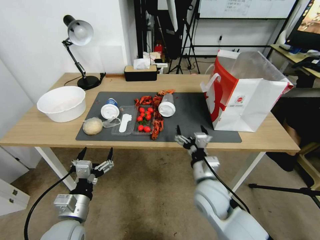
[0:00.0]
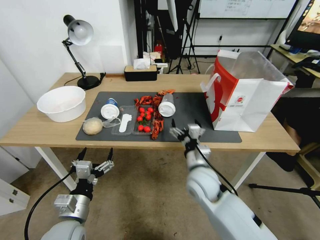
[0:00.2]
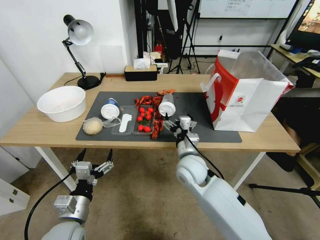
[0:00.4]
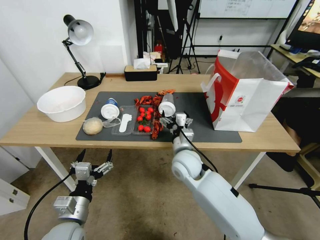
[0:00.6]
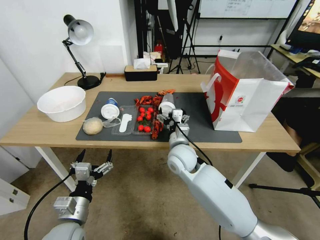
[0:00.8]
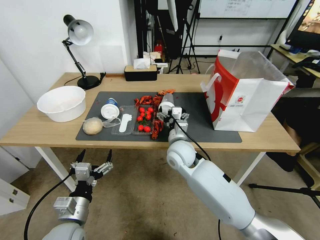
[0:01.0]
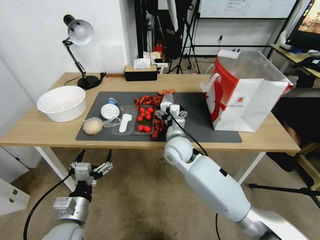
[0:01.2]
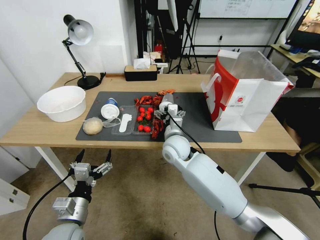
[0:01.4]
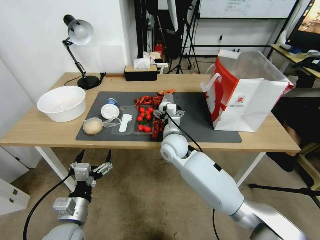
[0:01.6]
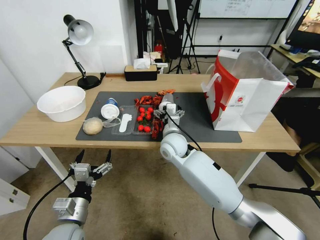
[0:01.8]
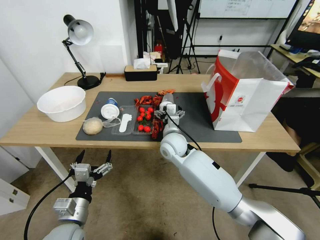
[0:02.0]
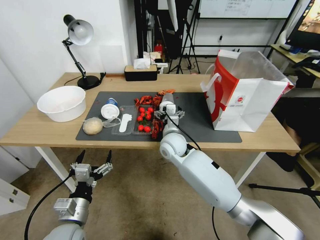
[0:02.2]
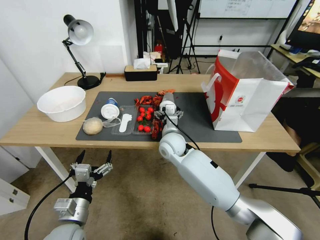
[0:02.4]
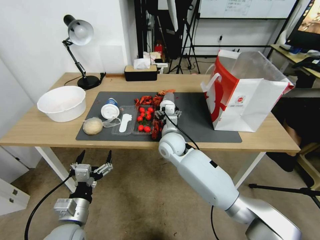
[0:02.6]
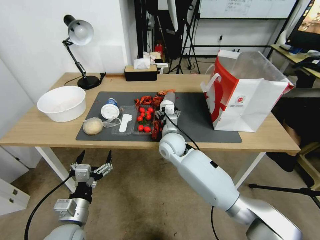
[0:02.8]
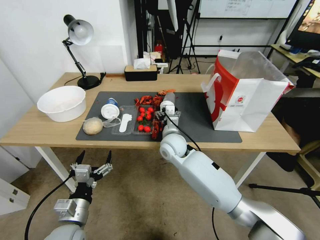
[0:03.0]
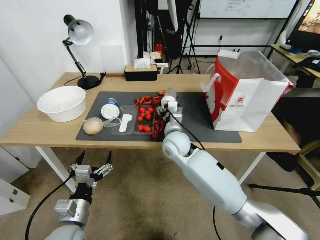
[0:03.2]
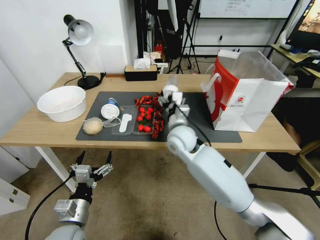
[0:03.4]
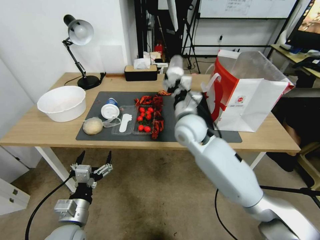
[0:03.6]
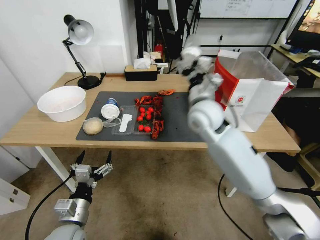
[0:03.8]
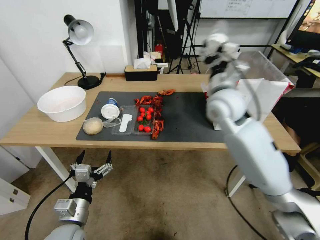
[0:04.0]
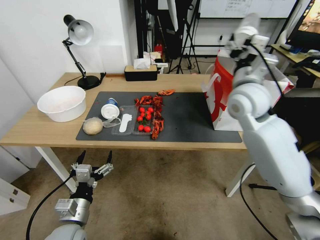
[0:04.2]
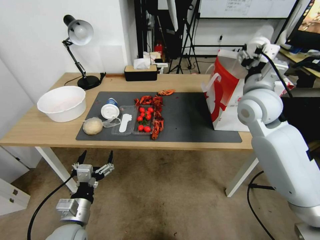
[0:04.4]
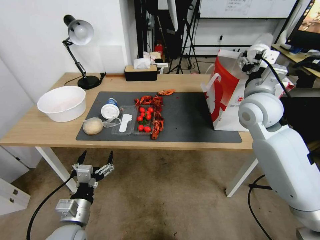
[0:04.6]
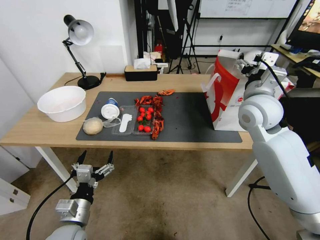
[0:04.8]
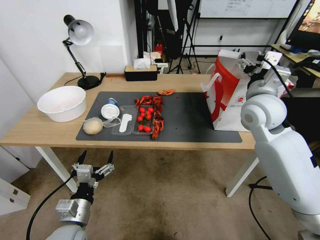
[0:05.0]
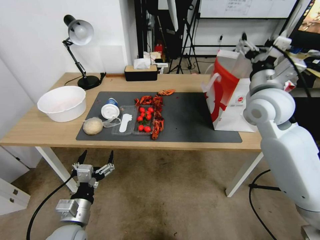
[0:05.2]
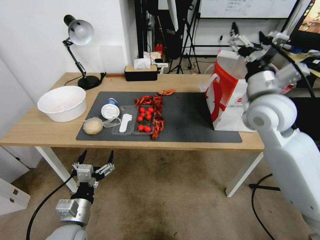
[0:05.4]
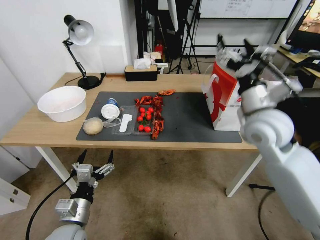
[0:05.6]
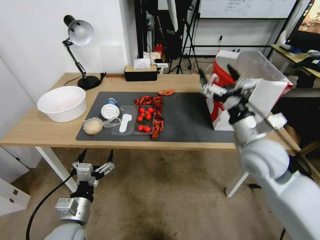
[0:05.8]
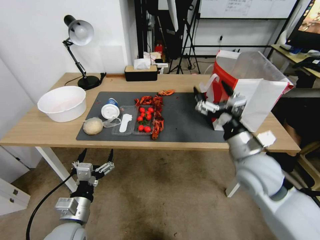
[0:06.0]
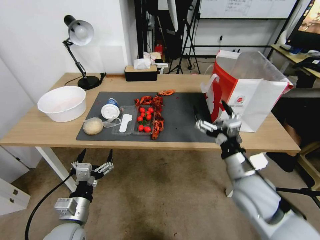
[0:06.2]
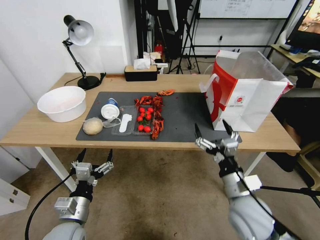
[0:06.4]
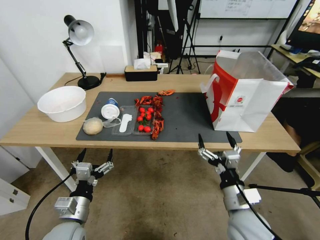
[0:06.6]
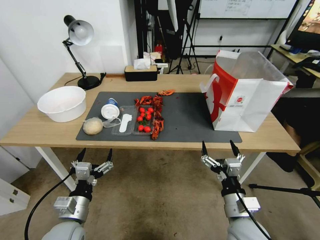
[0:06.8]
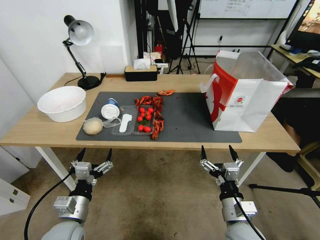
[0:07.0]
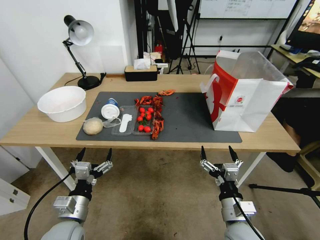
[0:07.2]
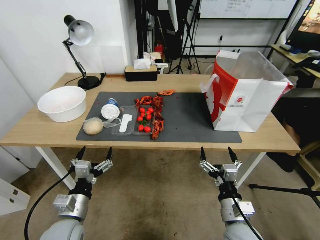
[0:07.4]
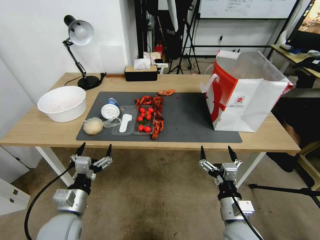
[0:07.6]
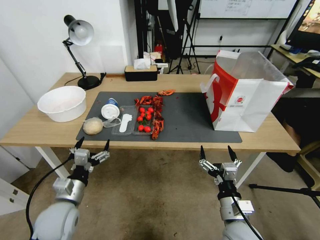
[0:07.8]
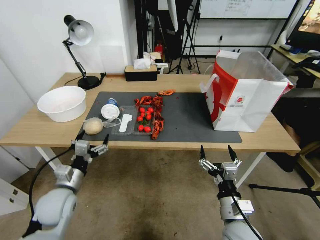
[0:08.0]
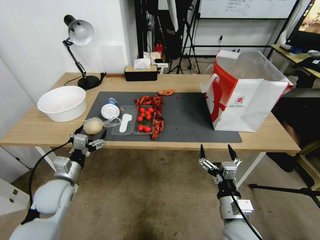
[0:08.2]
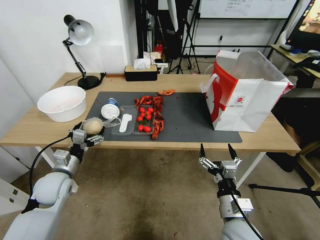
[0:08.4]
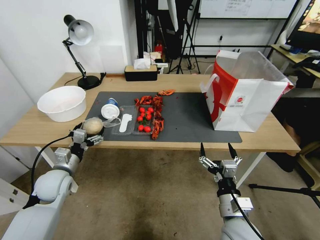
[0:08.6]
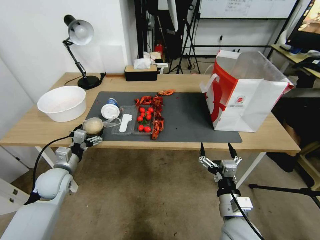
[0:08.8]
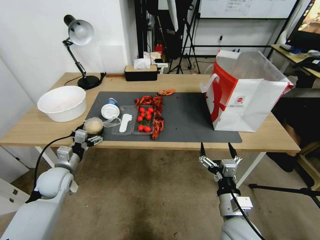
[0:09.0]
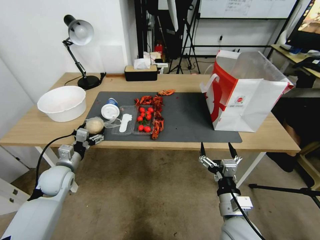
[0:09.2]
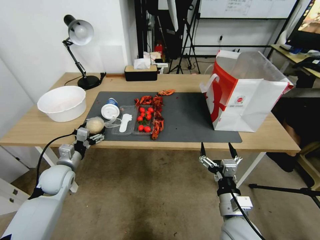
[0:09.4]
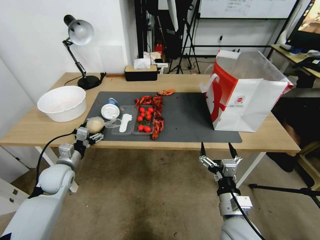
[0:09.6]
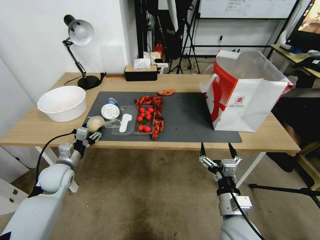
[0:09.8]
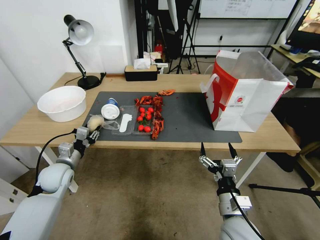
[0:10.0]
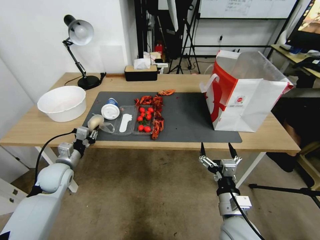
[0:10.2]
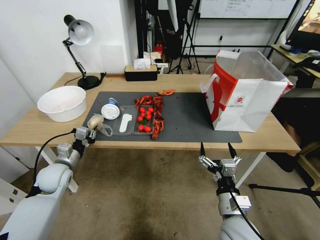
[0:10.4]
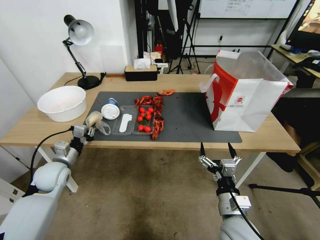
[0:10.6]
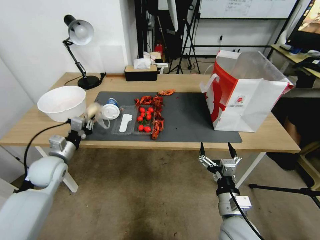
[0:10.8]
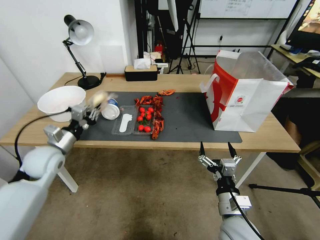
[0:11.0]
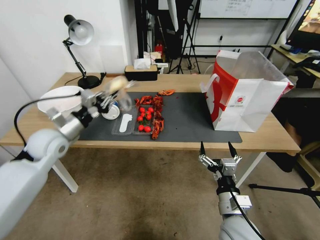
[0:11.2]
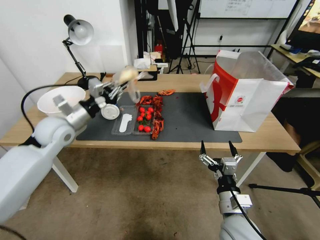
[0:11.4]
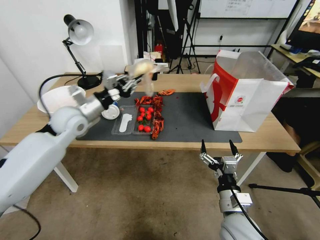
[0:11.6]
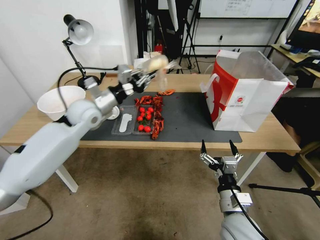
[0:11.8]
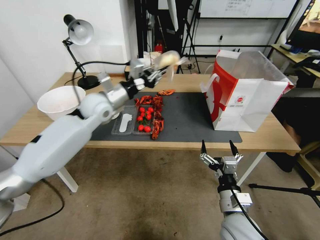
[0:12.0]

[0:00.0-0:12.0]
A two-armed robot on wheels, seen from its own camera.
0:00.0 to 0:01.6: The right gripper moves forward and to the left, some 20 cm.
0:01.6 to 0:03.0: The grippers stay close to where they were, moving slightly.
0:03.0 to 0:04.4: The right gripper moves to the right and upward, some 30 cm.
0:04.4 to 0:06.0: The right gripper goes about 15 cm backward and downward.
0:06.0 to 0:07.6: The right gripper shifts approximately 20 cm downward and backward.
0:07.6 to 0:09.0: The left gripper goes approximately 15 cm forward and to the left.
0:09.0 to 0:10.4: The left gripper closes up.
0:10.4 to 0:12.0: The left gripper goes about 30 cm upward, to the right and forward.

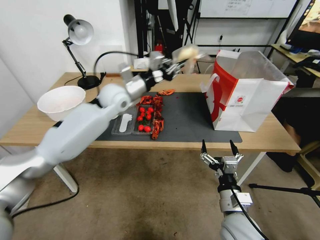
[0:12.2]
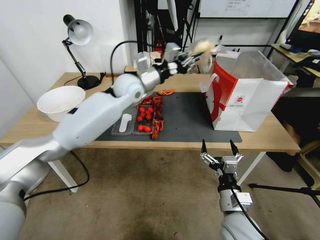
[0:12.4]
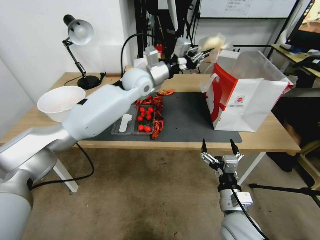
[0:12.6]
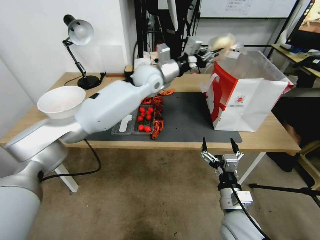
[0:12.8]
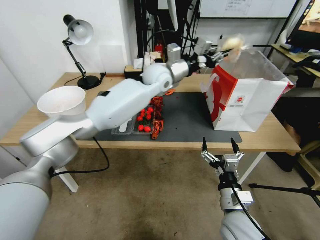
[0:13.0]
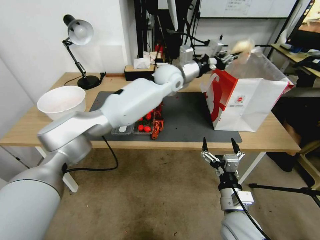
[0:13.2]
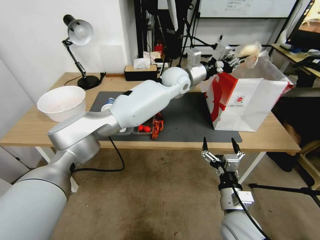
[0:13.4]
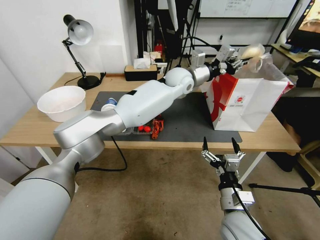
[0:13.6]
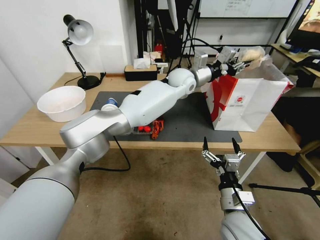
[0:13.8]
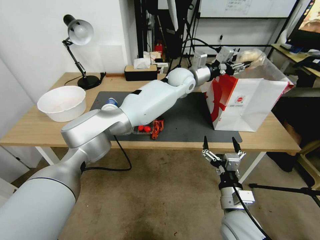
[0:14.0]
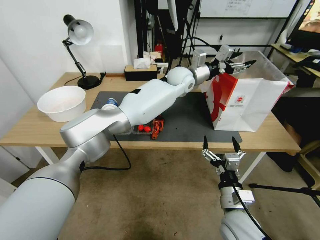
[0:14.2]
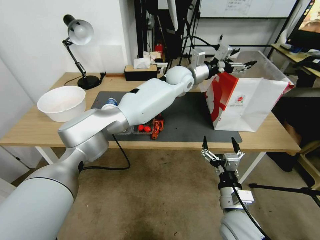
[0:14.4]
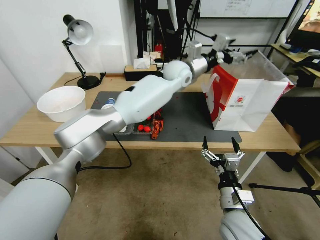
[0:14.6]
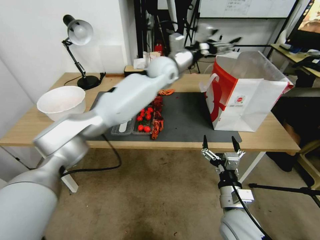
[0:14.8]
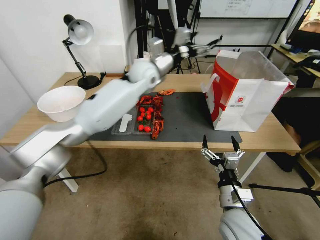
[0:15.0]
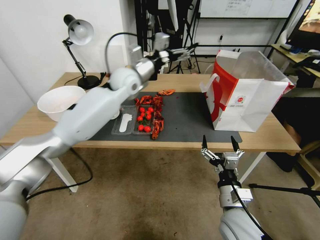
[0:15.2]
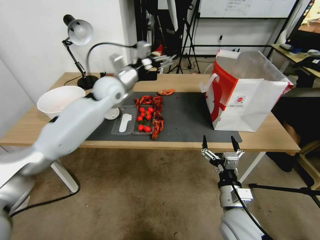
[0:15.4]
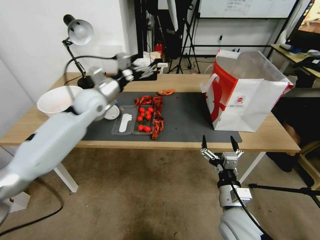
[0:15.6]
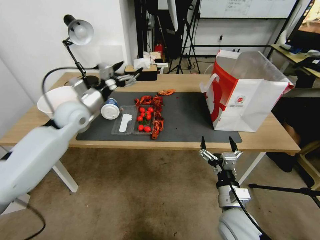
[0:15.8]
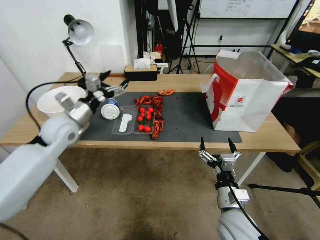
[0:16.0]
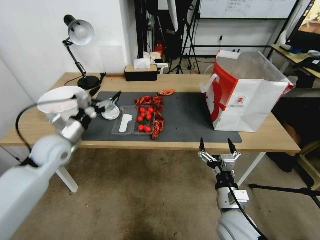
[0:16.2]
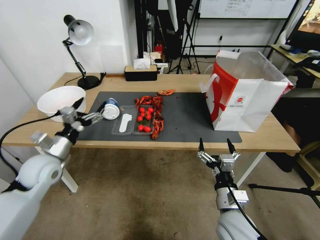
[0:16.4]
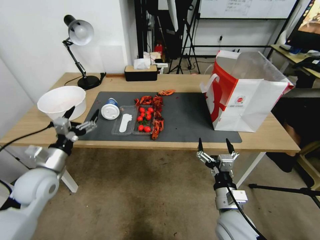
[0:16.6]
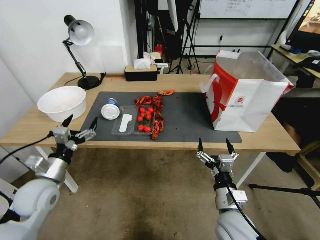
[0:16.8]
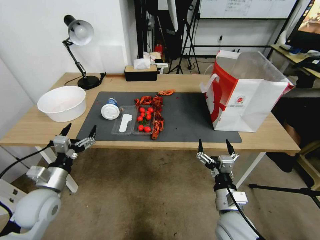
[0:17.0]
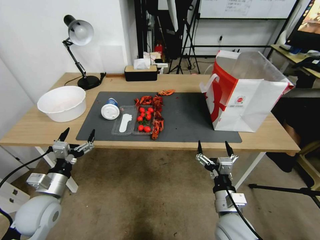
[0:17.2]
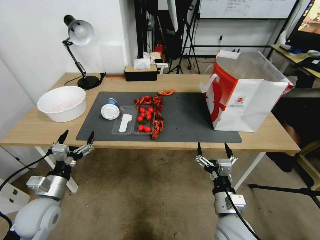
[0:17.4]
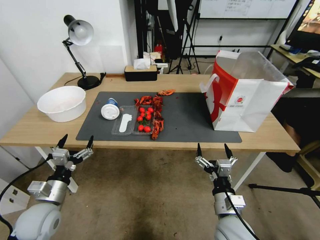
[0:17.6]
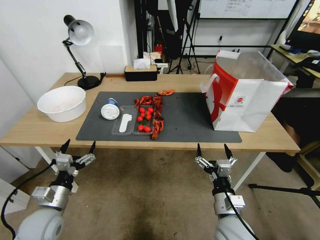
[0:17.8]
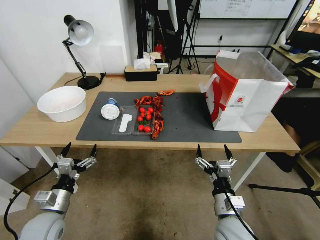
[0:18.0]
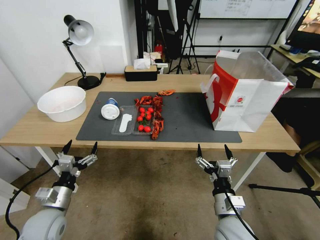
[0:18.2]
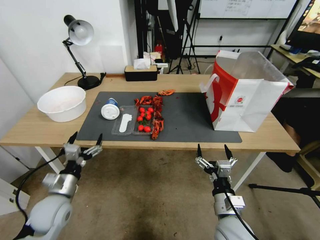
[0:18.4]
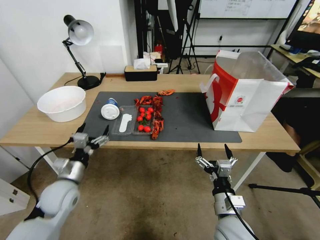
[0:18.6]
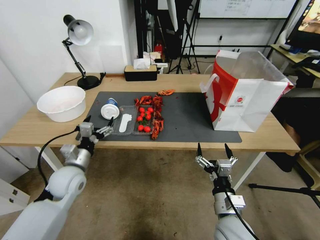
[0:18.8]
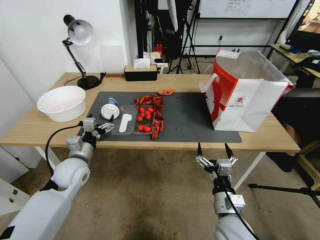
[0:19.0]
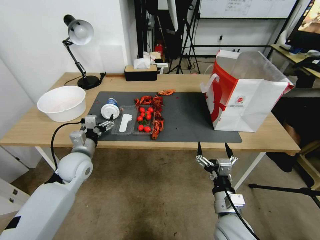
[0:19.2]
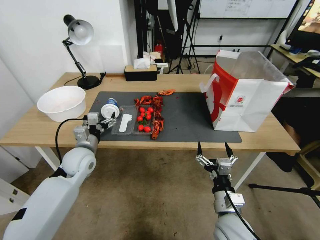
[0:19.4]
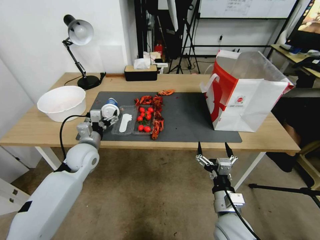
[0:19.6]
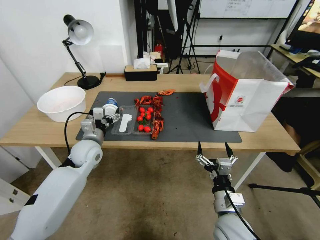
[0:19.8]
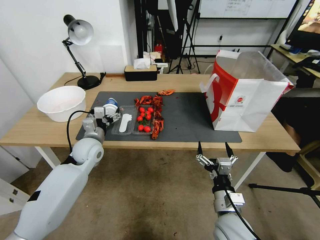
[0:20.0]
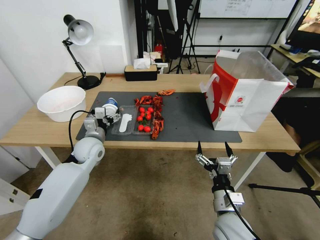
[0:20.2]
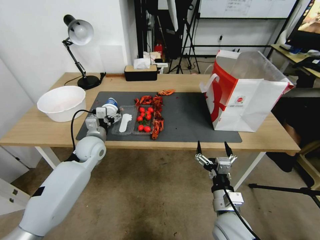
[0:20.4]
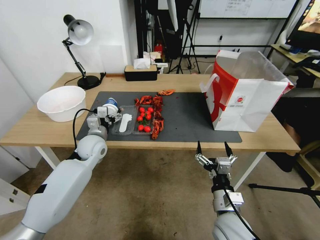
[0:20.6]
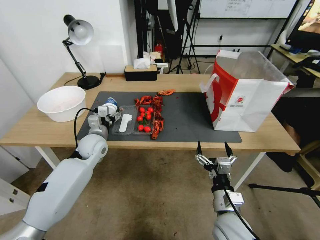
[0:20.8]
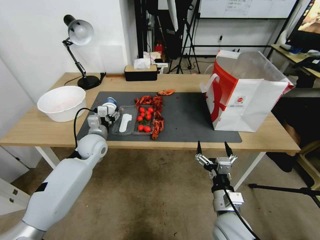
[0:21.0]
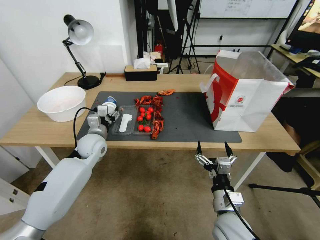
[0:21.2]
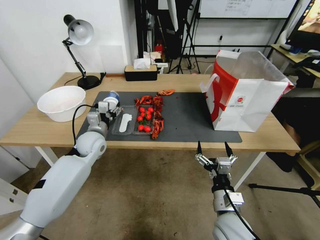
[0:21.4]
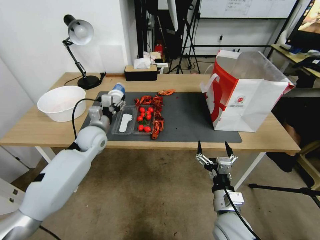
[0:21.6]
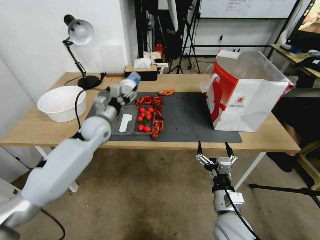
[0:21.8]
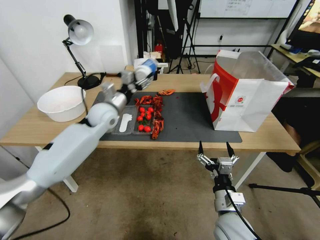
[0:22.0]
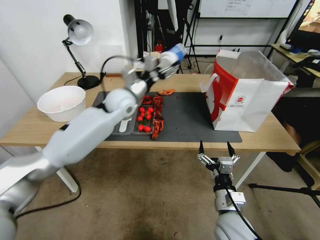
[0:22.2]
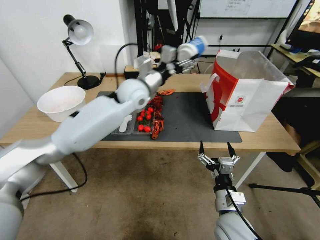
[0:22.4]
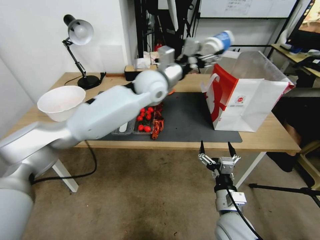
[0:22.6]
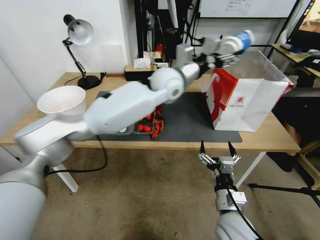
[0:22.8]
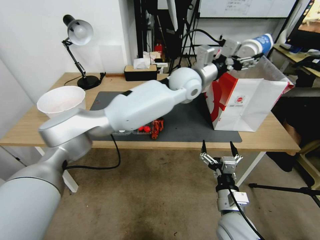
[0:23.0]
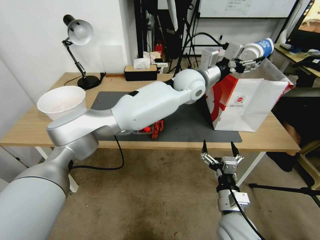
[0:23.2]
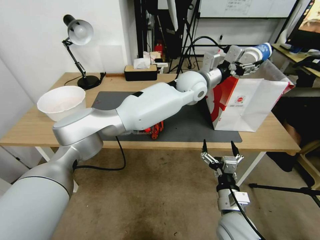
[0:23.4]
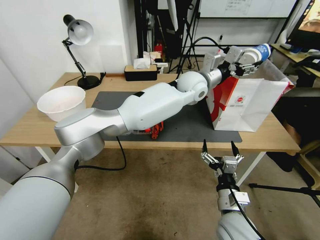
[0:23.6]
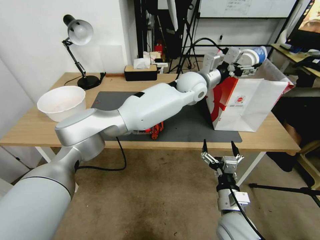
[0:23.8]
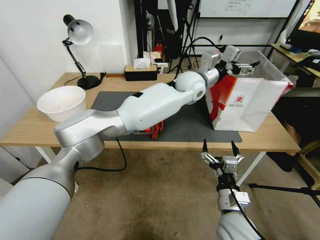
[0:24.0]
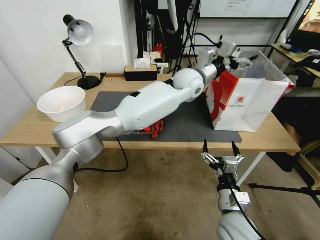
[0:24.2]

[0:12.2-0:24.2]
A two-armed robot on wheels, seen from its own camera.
0:12.2 to 0:13.8: The left gripper is displaced to the right by about 20 cm.
0:13.8 to 0:15.2: The left gripper heads to the left, covering approximately 20 cm, and opens.
0:15.2 to 0:16.6: The left gripper moves backward, to the left and downward, about 40 cm.
0:16.6 to 0:18.2: The left gripper heads downward and backward, covering about 10 cm.
0:18.2 to 0:19.8: The left gripper is displaced forward by roughly 20 cm.
0:19.8 to 0:21.2: The left gripper closes its fingers.
0:21.2 to 0:22.6: The left gripper heads upward and to the right, covering about 25 cm.
0:22.6 to 0:24.2: The left gripper travels to the right by some 15 cm, and opens.
